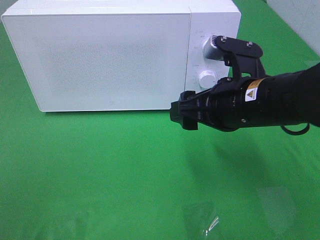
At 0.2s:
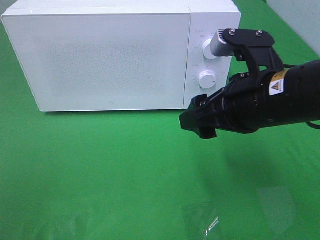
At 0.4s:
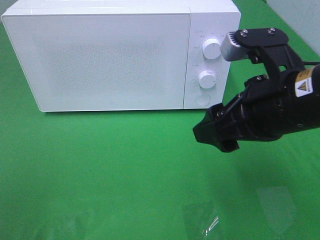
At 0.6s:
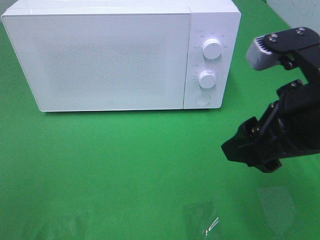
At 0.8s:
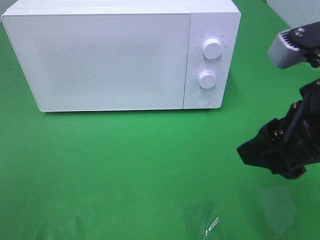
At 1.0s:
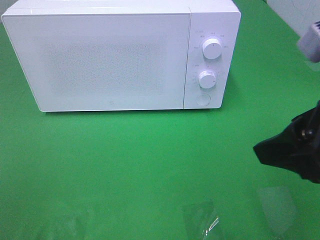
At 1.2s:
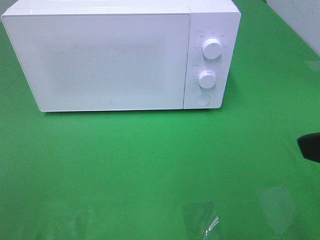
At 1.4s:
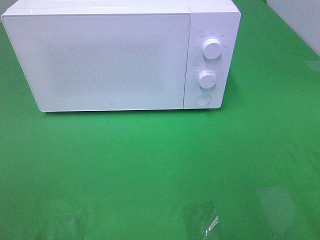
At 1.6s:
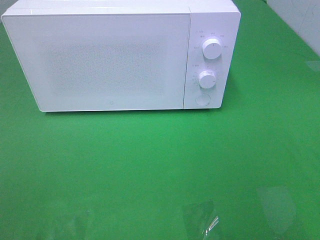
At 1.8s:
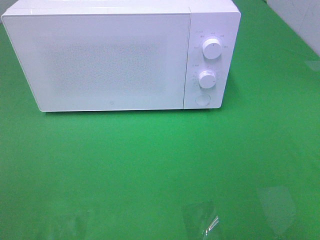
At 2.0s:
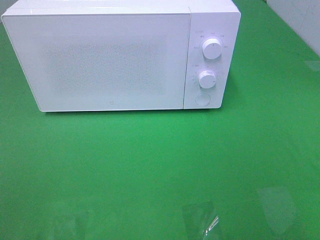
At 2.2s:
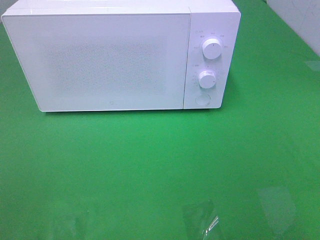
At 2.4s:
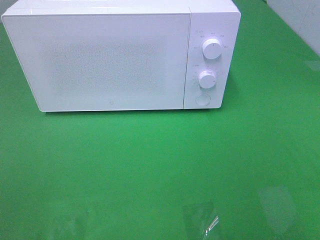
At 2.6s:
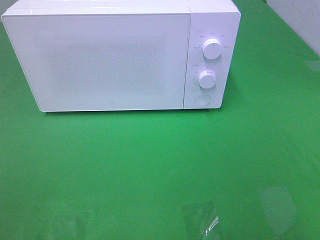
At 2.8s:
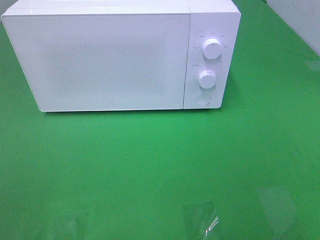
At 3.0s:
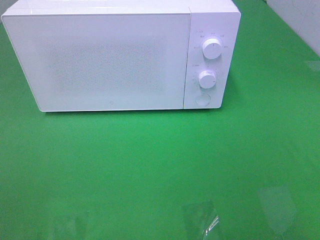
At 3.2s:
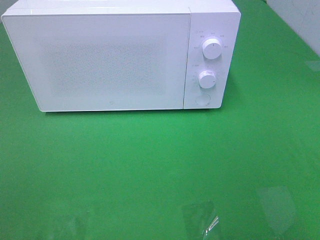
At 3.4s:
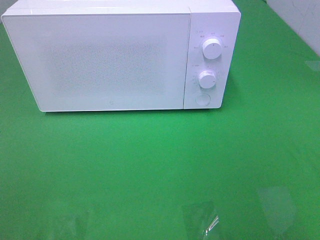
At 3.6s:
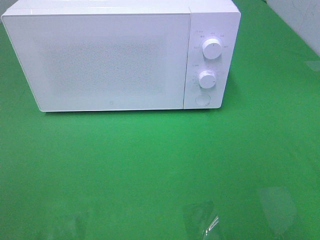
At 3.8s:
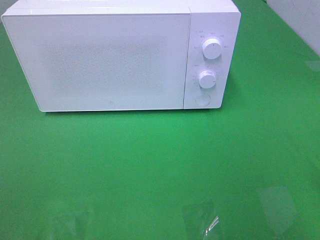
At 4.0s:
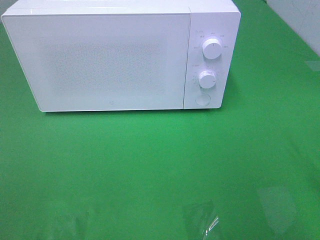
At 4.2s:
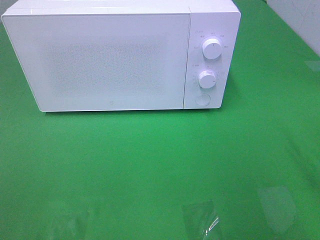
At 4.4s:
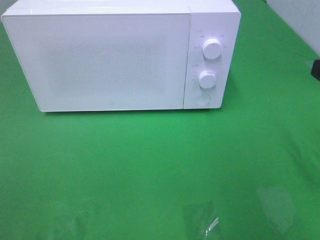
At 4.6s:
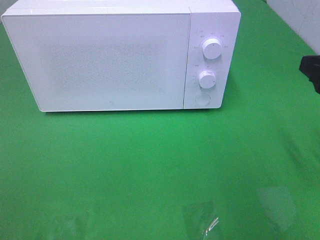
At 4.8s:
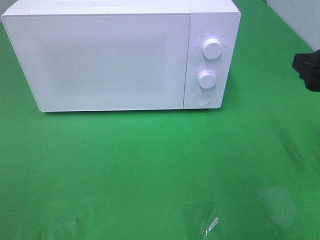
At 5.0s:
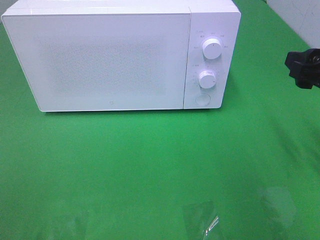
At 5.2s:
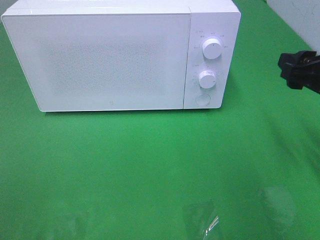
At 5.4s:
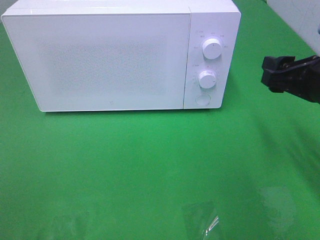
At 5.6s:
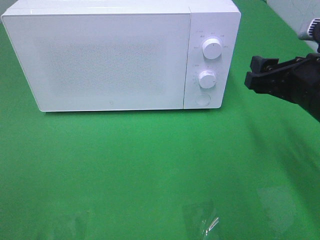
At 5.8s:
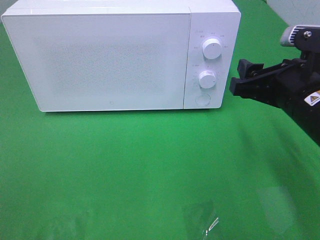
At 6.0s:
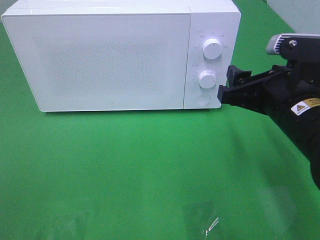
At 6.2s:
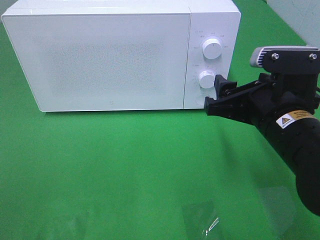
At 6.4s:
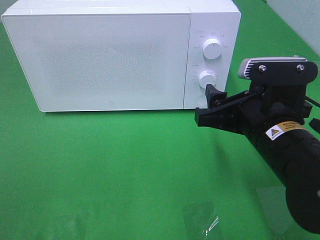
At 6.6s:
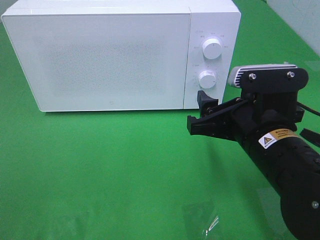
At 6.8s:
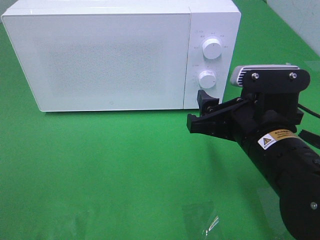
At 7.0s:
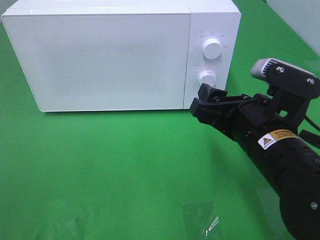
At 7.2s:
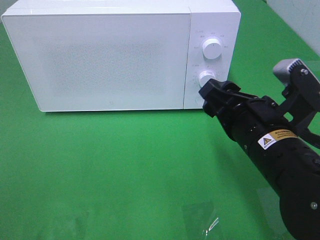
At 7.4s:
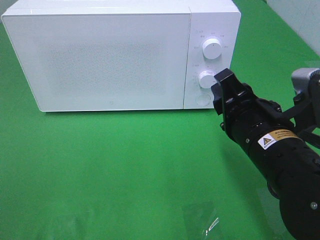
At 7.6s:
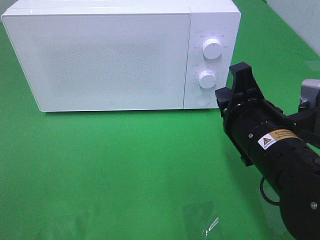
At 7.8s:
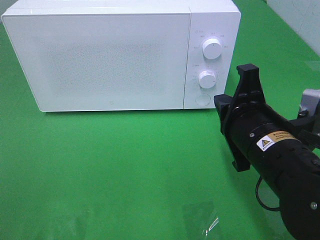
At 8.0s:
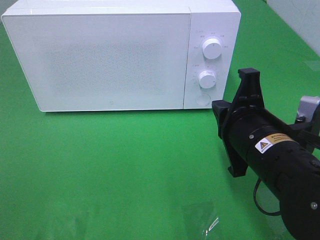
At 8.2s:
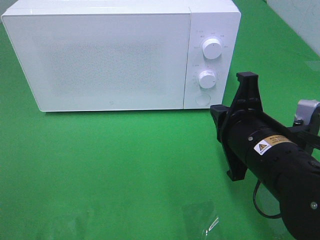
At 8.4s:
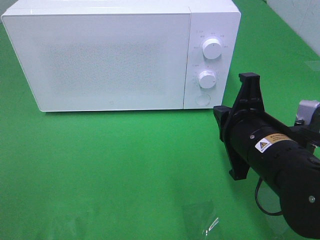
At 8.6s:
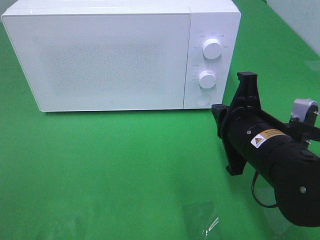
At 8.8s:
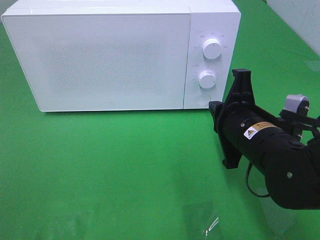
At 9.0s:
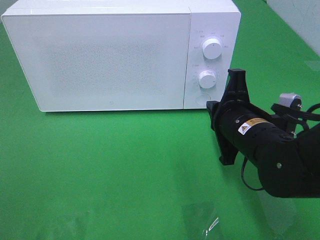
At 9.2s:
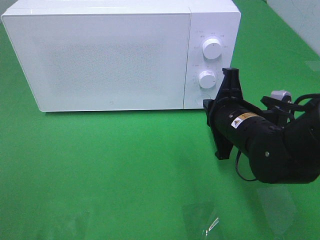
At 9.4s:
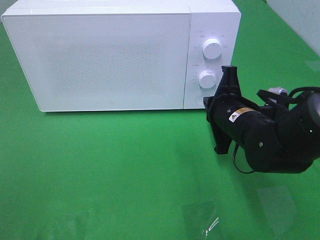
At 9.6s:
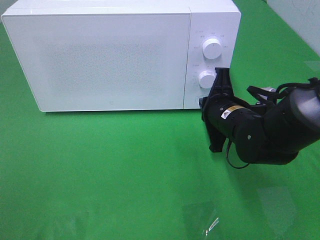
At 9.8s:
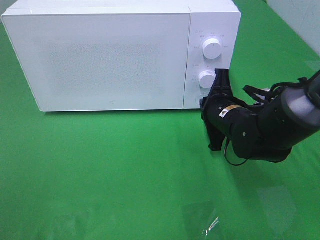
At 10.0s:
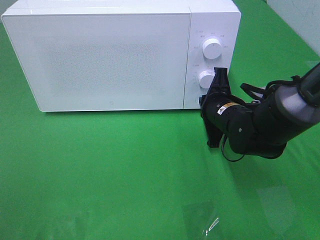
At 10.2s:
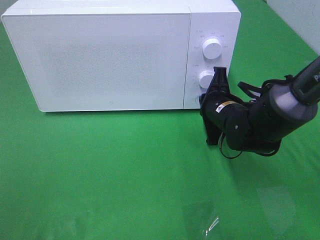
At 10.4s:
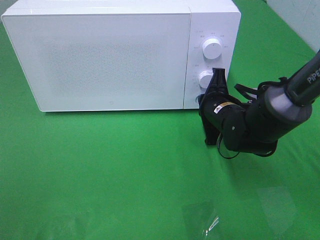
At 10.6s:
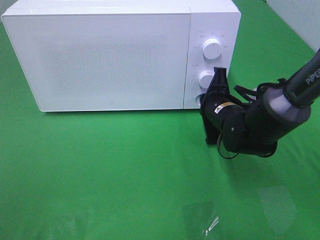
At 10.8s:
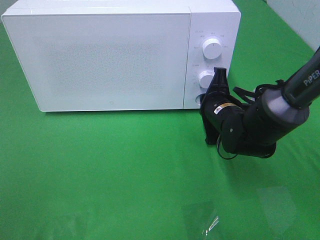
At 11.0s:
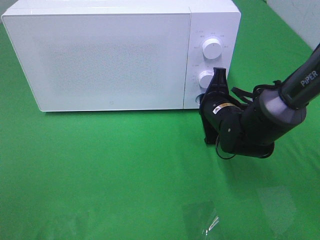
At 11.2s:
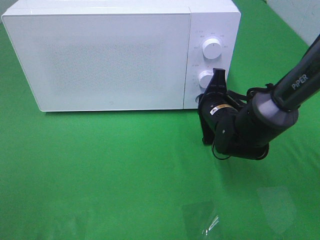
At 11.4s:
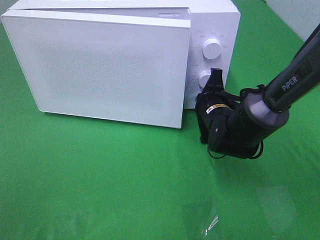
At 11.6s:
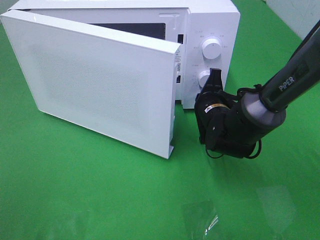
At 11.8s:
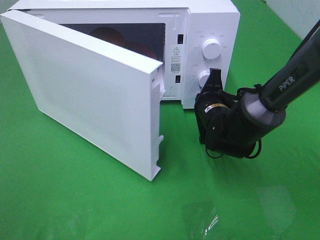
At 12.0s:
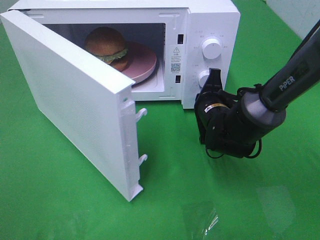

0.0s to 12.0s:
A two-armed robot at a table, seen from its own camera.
Task of the whole recording: Heat the burger.
0.0s to 1.6s: The right gripper heads backward, to the right and upward, covering roughly 25 cm.
4.4s to 6.0s: The right gripper shifts roughly 15 cm to the left, downward and forward.
6.0s to 7.6s: The right gripper changes place by about 5 cm, and closes up.
7.6s to 9.0s: The right gripper is displaced forward by about 5 cm.
9.0s to 10.4s: The right gripper is displaced forward and downward by approximately 10 cm.

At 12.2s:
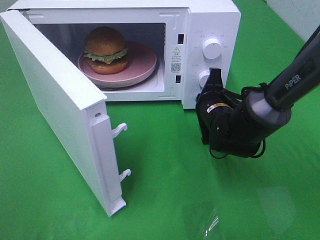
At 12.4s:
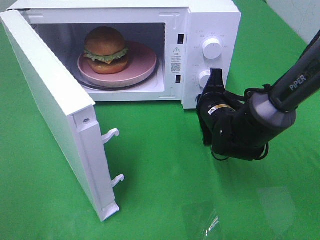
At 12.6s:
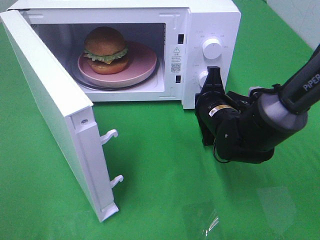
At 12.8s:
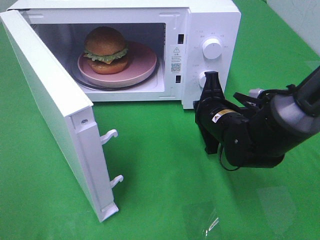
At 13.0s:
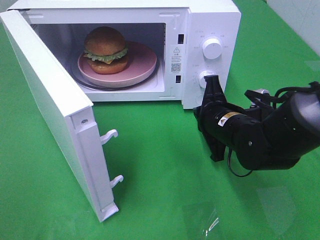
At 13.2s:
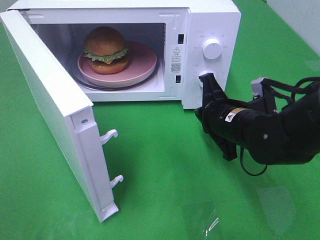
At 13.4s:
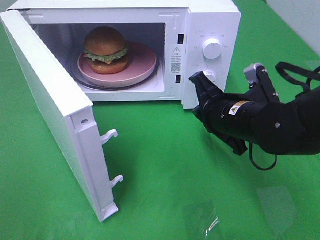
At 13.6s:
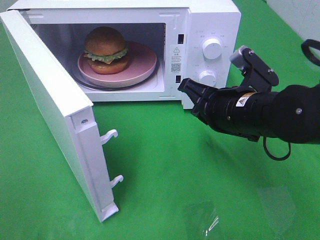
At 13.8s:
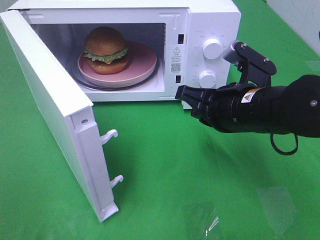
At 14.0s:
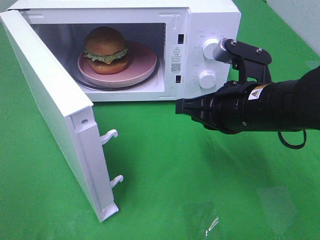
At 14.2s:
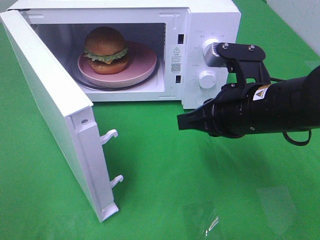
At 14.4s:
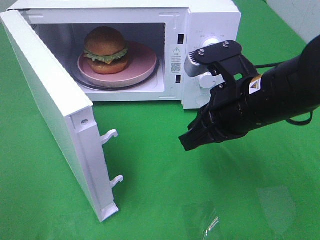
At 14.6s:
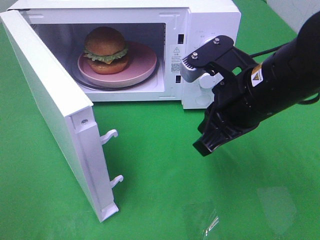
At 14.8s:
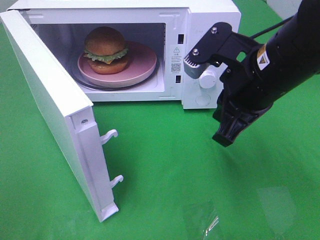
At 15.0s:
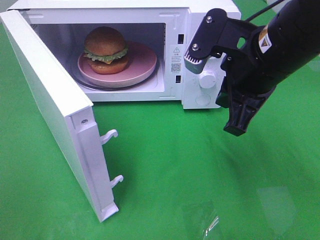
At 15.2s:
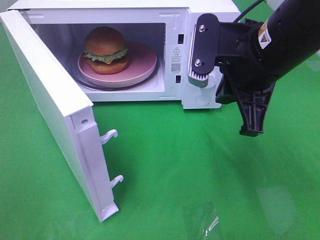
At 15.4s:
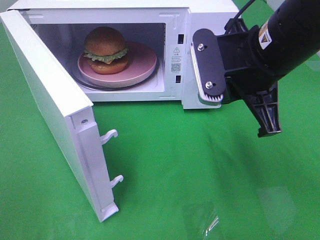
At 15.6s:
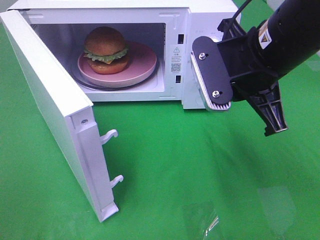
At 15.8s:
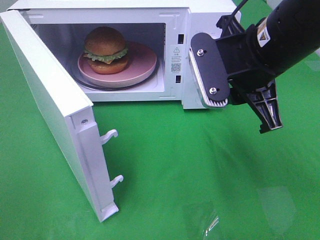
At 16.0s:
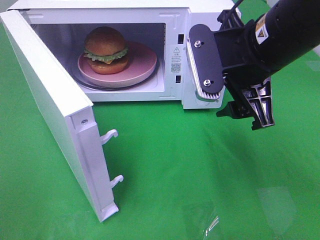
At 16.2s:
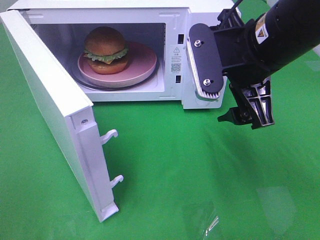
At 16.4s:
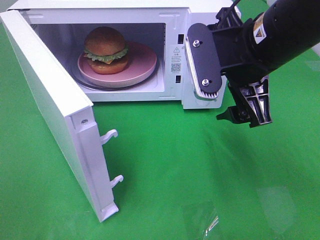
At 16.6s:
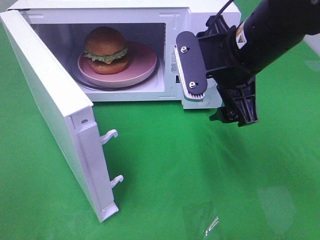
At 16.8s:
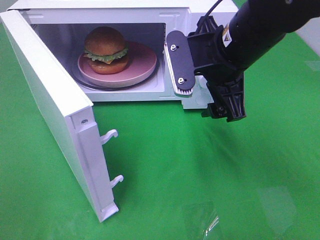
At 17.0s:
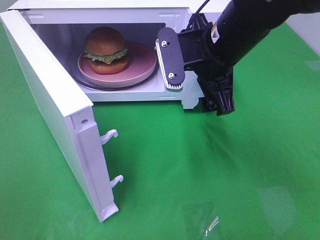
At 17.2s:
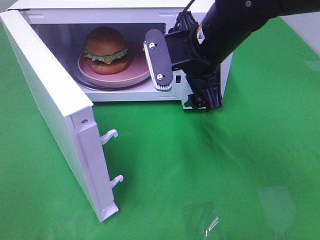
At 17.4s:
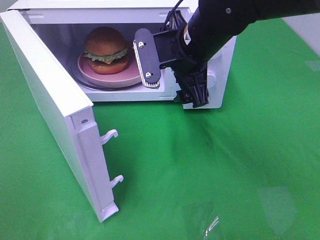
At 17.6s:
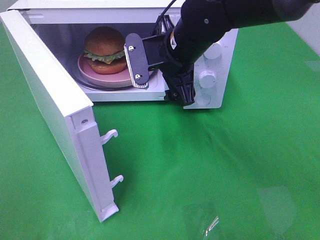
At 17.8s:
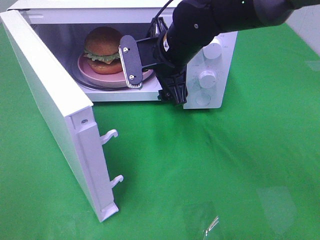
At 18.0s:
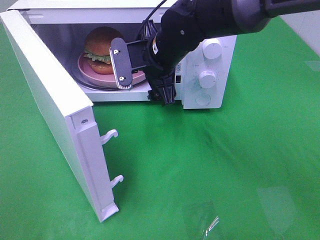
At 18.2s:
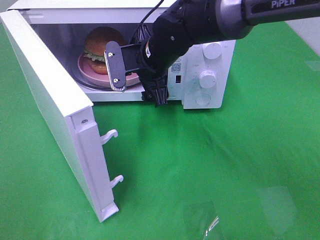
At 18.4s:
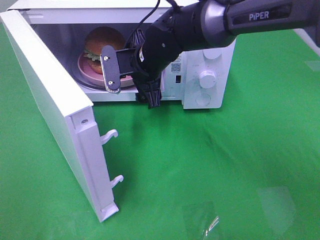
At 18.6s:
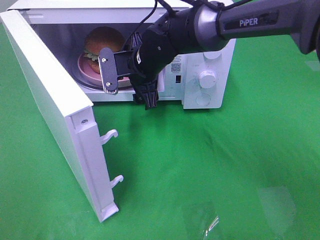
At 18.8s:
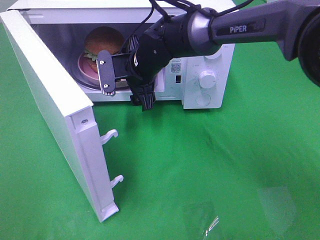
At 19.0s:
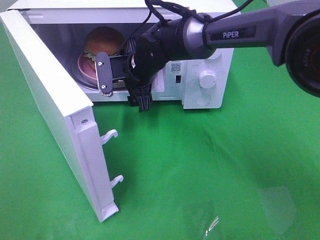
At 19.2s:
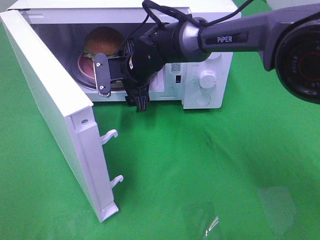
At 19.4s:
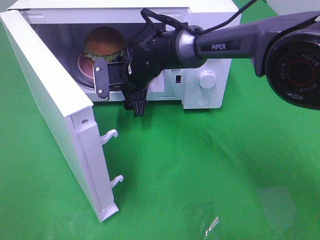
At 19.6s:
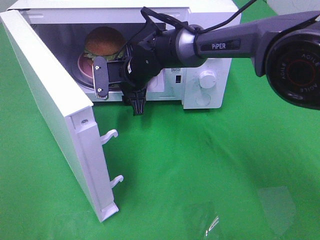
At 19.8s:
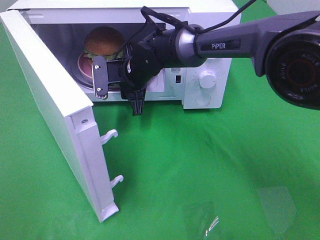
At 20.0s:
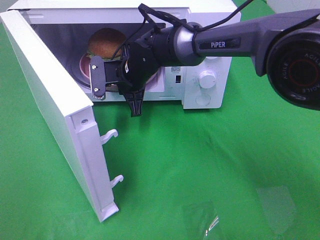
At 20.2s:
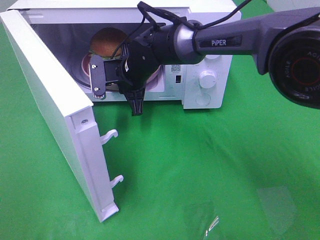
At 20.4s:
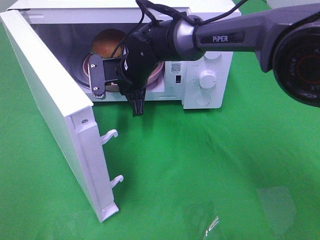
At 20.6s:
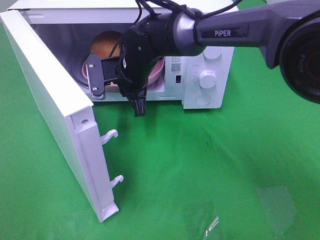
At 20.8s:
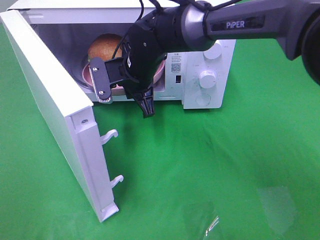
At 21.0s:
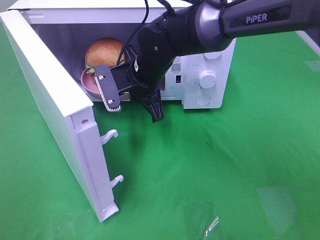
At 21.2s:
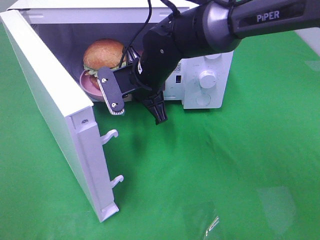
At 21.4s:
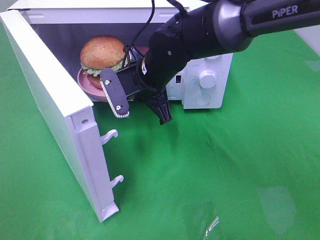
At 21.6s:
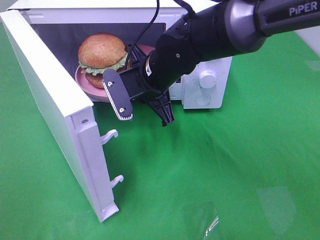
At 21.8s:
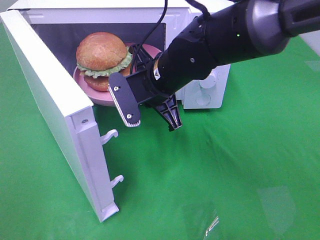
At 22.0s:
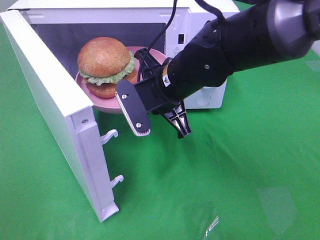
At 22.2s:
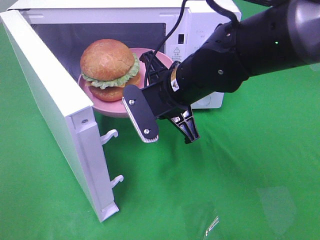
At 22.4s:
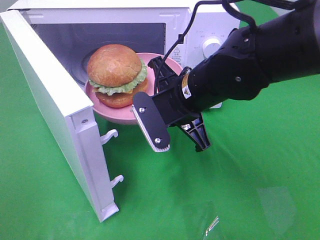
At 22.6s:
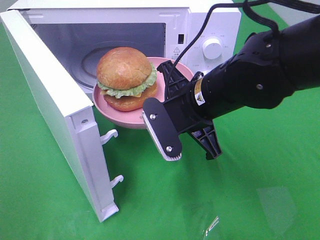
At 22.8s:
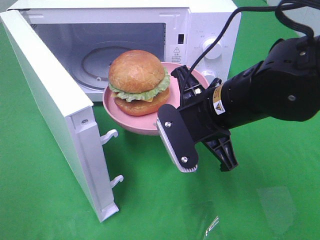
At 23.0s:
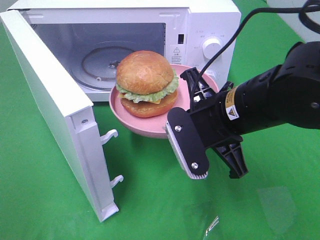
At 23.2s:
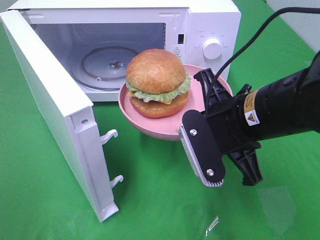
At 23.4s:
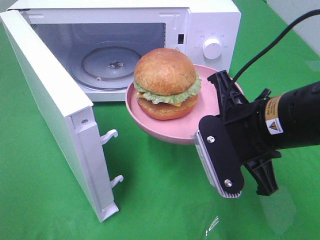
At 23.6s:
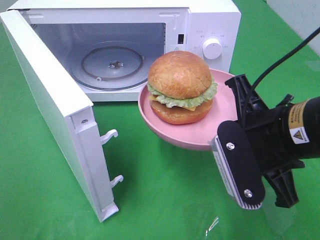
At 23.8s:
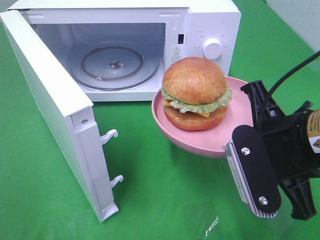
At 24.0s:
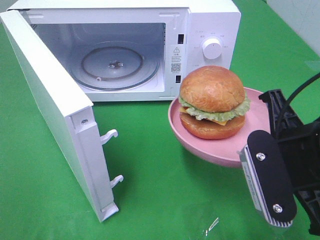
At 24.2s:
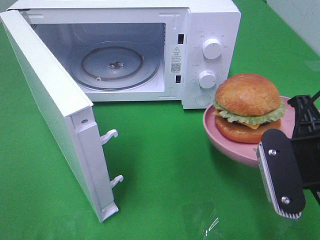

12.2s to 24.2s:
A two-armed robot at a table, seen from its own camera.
Task of the whole recording: Heat the burger.
Step, 12.8s to 20.2s: Right hand: grab the plate with the hamburger.
12.2s to 13.8s: The right gripper heads upward and backward, covering approximately 15 cm.
13.8s to 15.2s: The right gripper moves upward, some 10 cm.
15.2s to 16.6s: The right gripper opens.
16.6s to 18.2s: The right gripper travels forward, to the left and downward by about 15 cm.
18.2s to 19.8s: The right gripper goes some 5 cm downward, and closes up.
19.8s to 21.2s: The right gripper goes approximately 5 cm backward.
21.2s to 22.6s: The right gripper moves backward and to the right, approximately 15 cm.
22.6s to 24.2s: The right gripper travels to the right and backward by approximately 15 cm.
